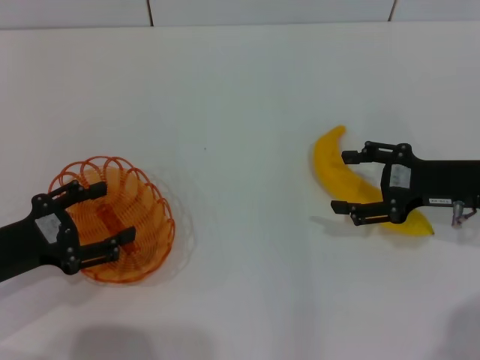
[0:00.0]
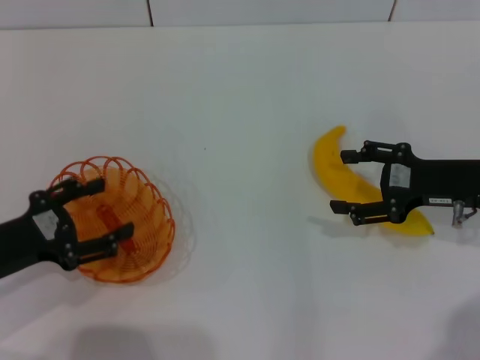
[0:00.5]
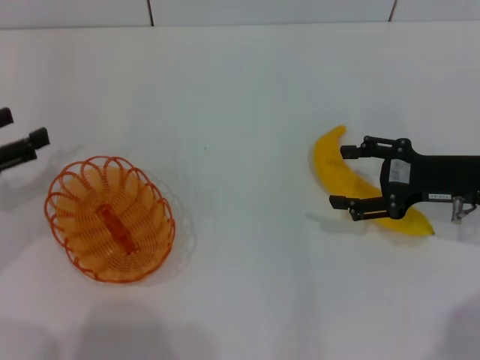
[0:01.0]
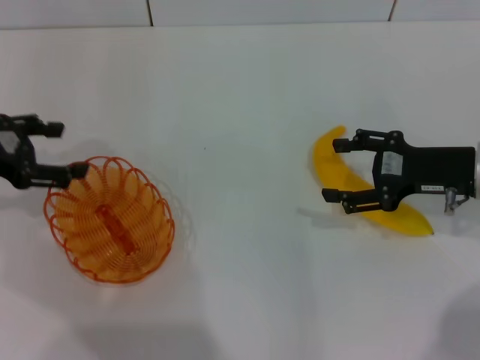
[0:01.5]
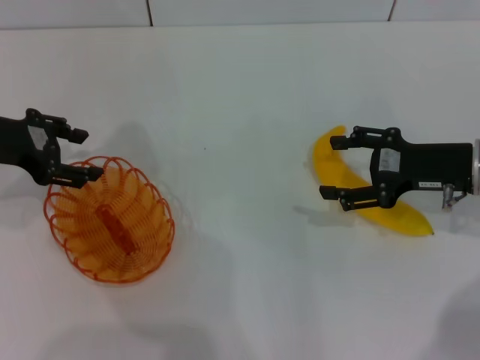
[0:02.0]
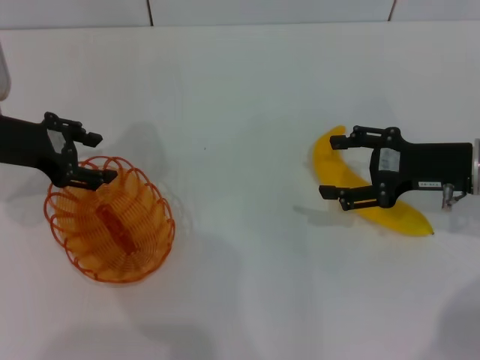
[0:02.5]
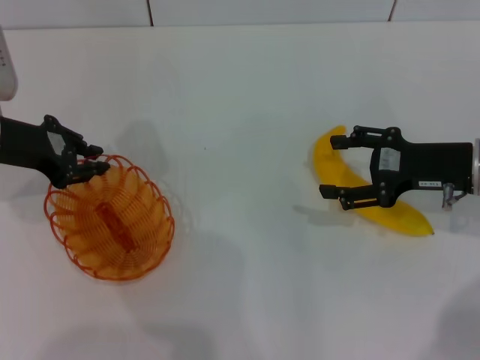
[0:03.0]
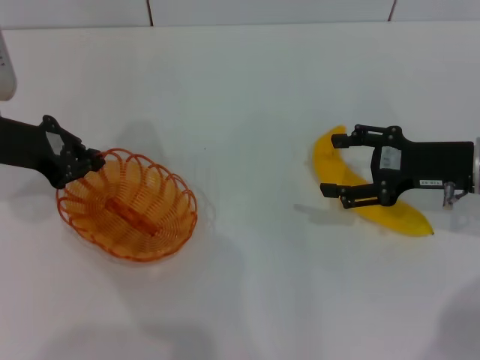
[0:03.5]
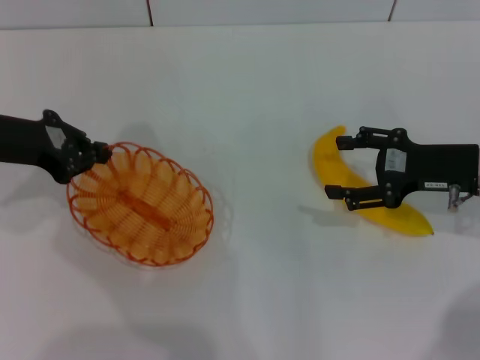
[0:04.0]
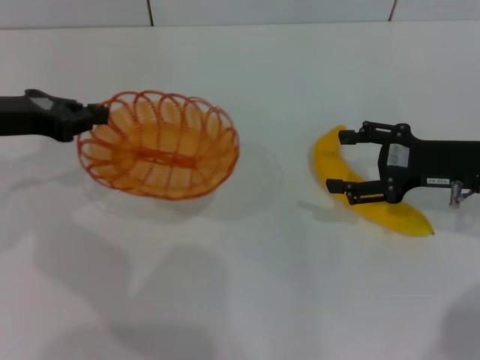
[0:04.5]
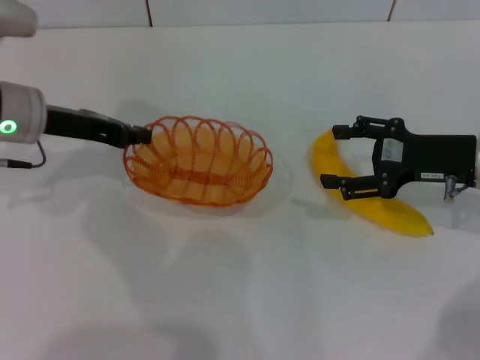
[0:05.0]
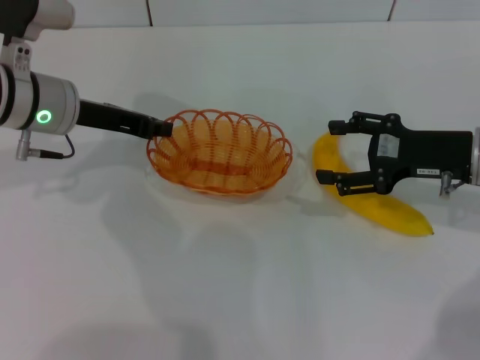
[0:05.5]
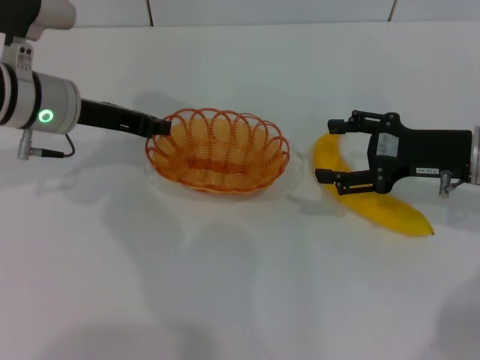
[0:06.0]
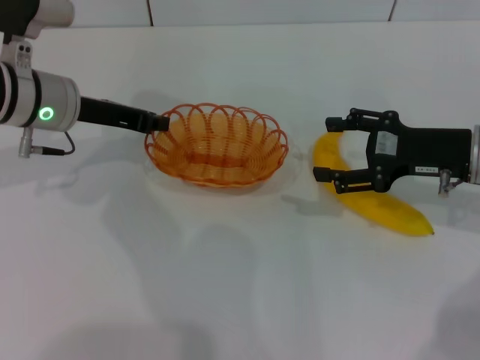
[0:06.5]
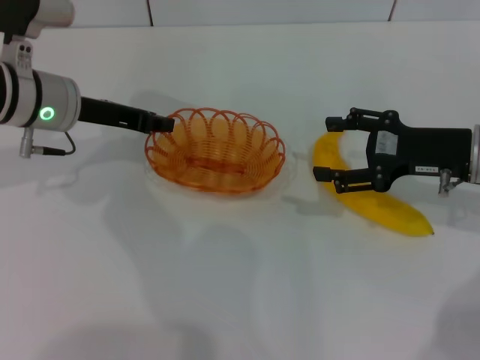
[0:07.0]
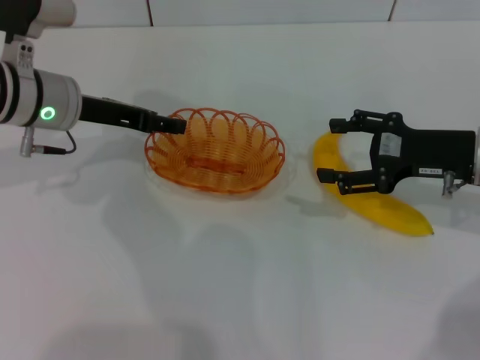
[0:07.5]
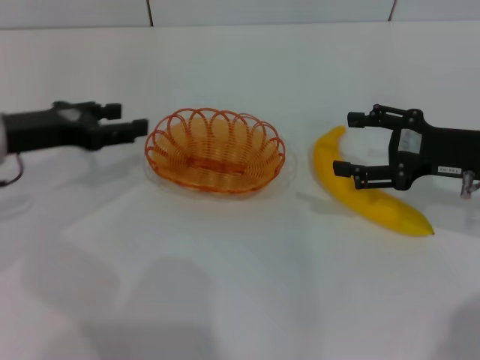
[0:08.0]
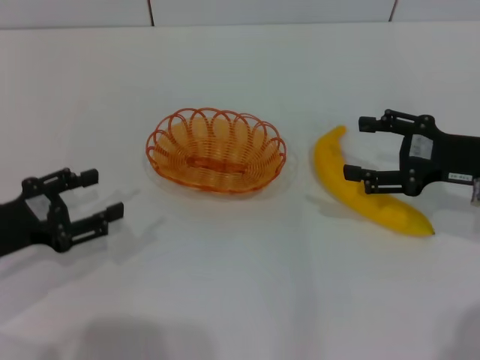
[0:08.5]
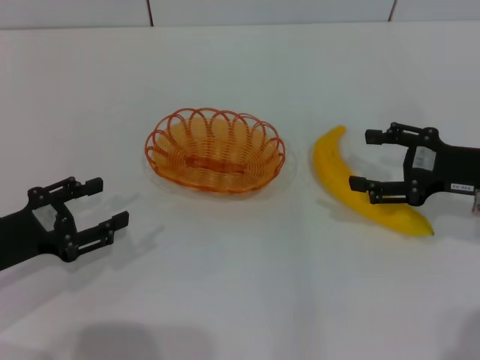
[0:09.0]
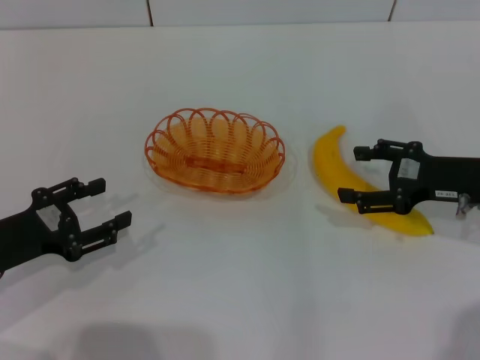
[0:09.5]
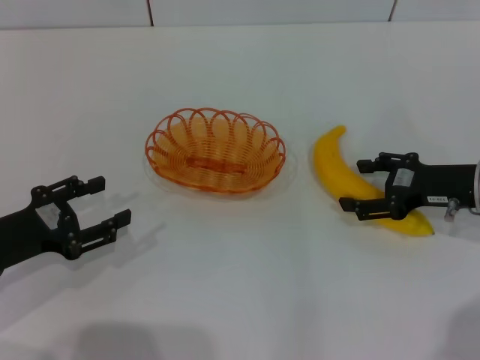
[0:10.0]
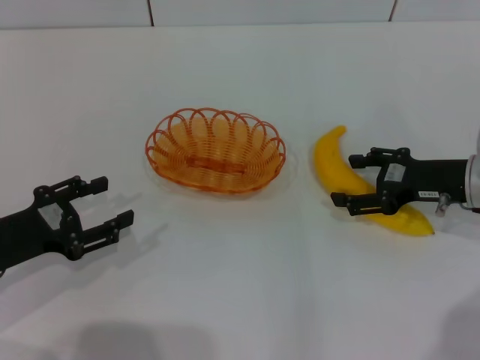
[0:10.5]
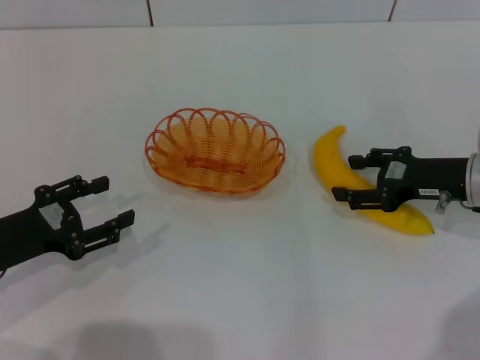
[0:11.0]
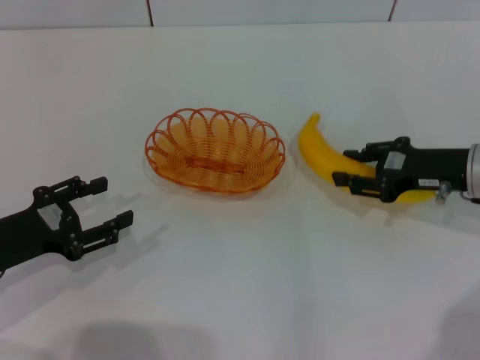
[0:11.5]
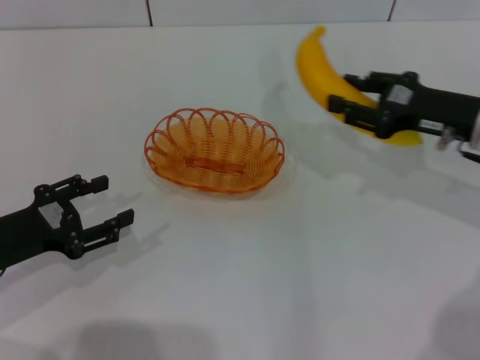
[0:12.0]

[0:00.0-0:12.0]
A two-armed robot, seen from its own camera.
Step, 0:00.0 to 0:04.0: Pick up the basket with the left gripper.
Step, 0:04.5 to 0:07.5: Place the basket in the center of view with the left gripper.
Step, 0:08.0 to 0:11.5: Pick up the banana with the right gripper.
0:00.0 to 0:02.0: The left gripper heads forward and upward, covering roughly 15 cm.
0:02.0 to 0:04.0: The left gripper closes up.
0:04.0 to 0:06.0: The left gripper heads to the right, covering approximately 5 cm.
0:06.0 to 0:08.0: The left gripper shifts about 5 cm to the left, and opens.
0:08.0 to 0:10.0: The left gripper heads backward and downward, covering roughly 15 cm.
0:10.0 to 0:12.0: The right gripper shifts by about 5 cm, and closes.

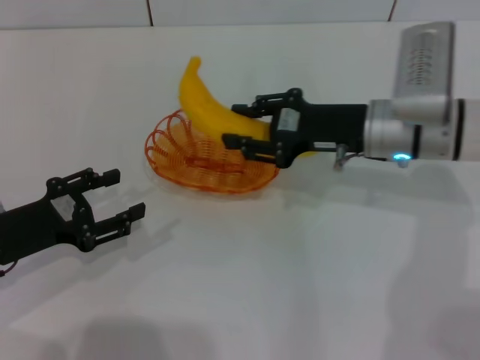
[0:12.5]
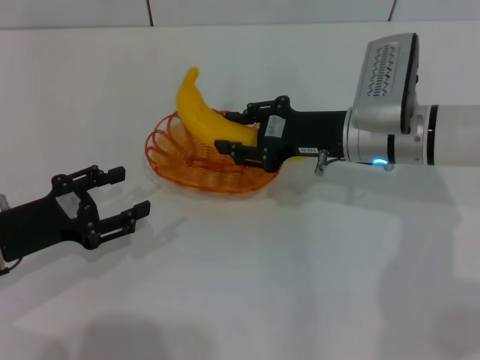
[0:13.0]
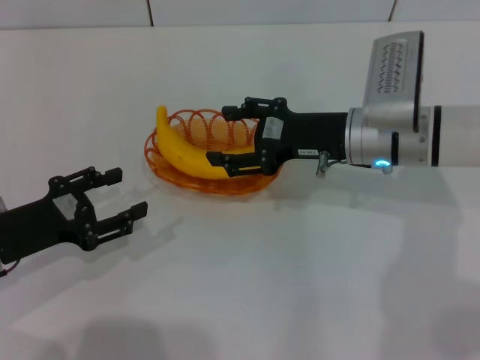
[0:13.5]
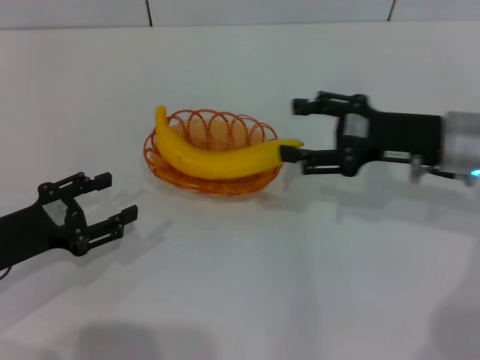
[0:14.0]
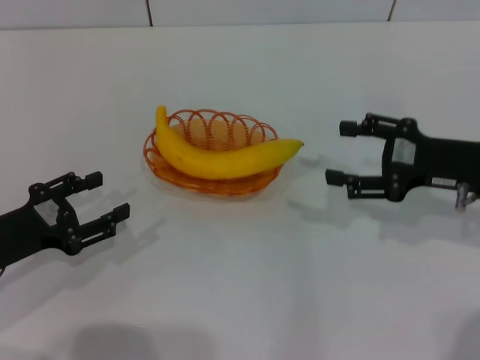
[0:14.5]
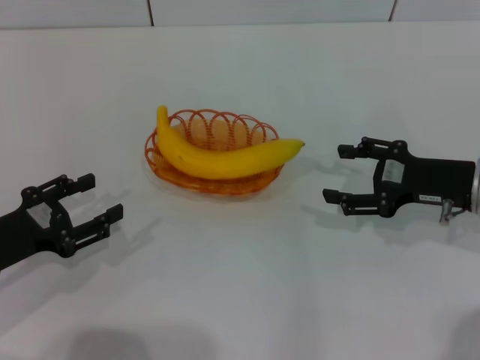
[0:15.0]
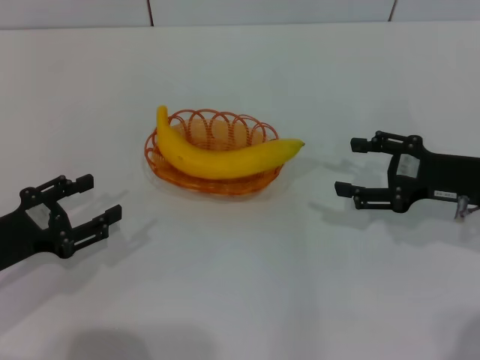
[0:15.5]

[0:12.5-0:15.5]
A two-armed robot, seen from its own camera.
Step, 0:12.5 to 0:13.5: Place the banana into the basket with the right gripper.
0:12.5 to 0:14.0: The right gripper travels to the right by roughly 5 cm, and opens.
0:14.0 to 0:15.5: The right gripper shifts about 5 cm to the right.
